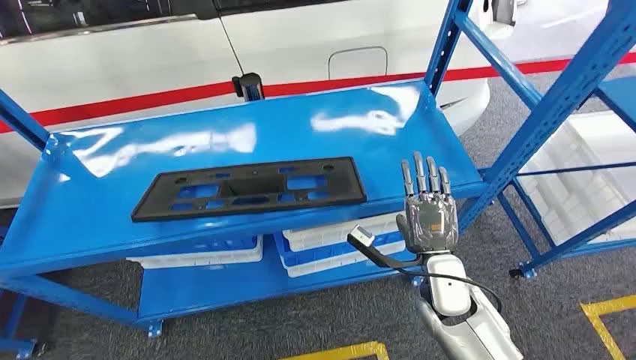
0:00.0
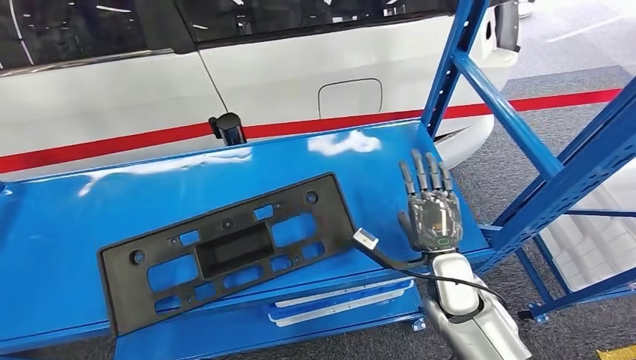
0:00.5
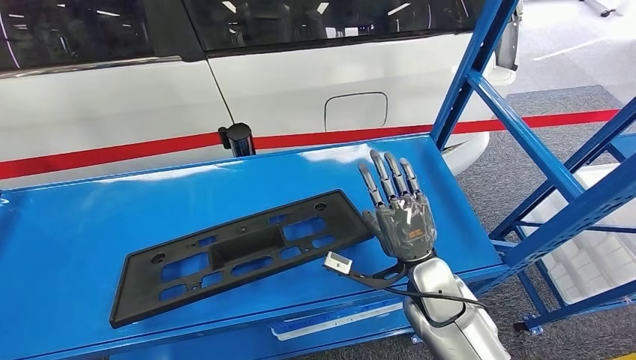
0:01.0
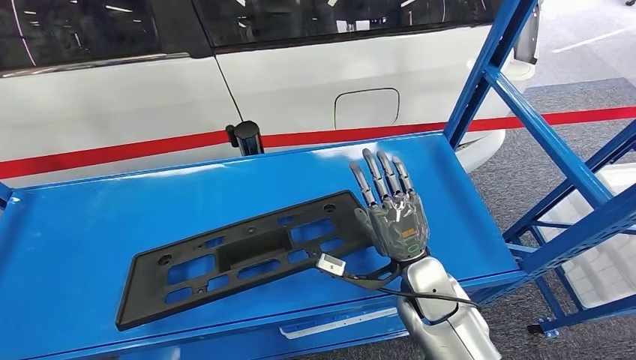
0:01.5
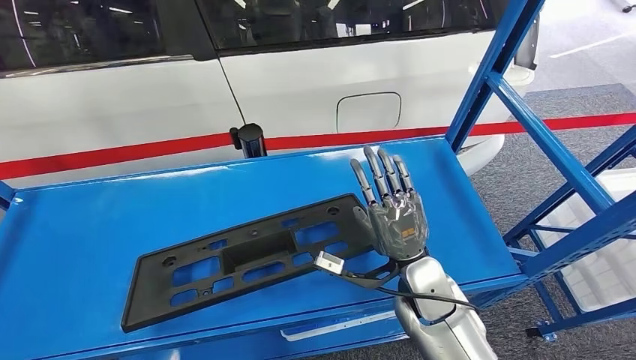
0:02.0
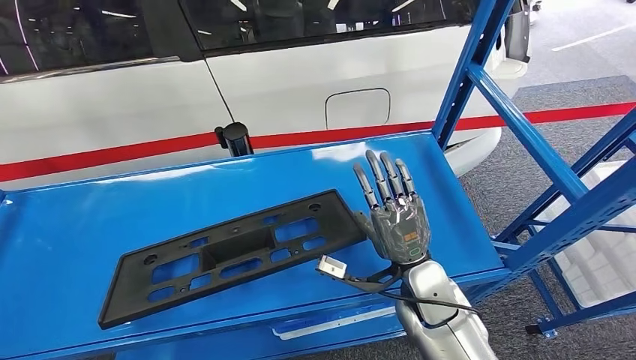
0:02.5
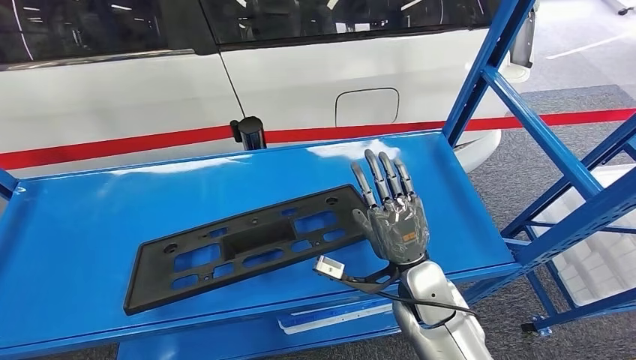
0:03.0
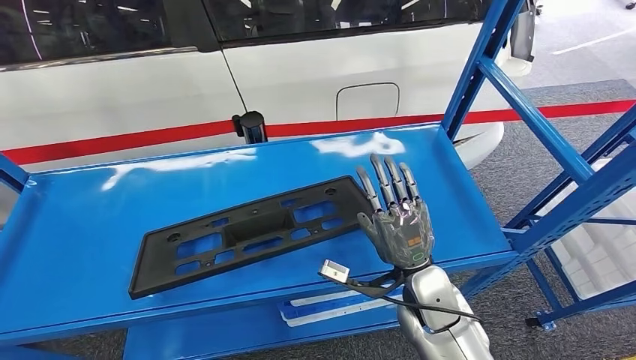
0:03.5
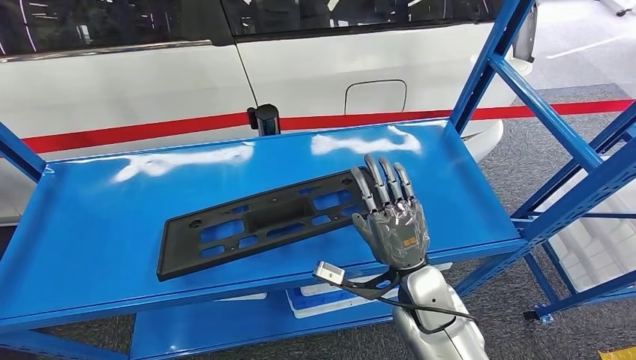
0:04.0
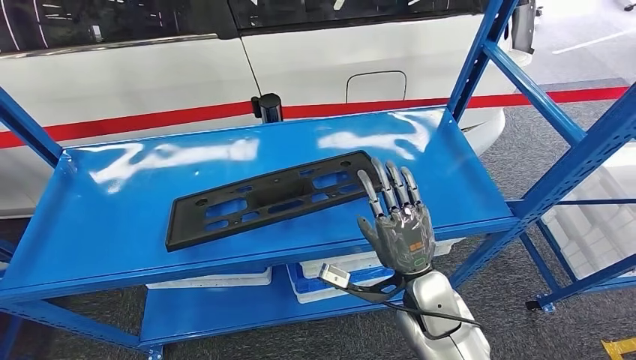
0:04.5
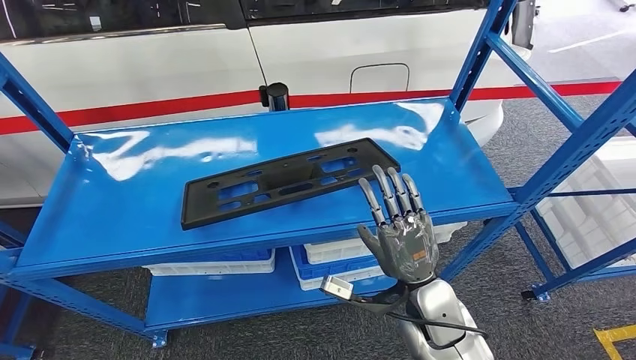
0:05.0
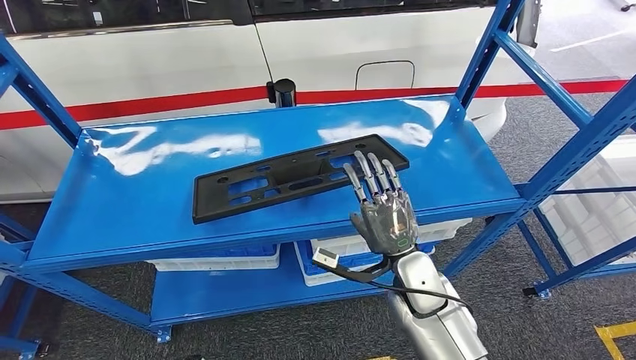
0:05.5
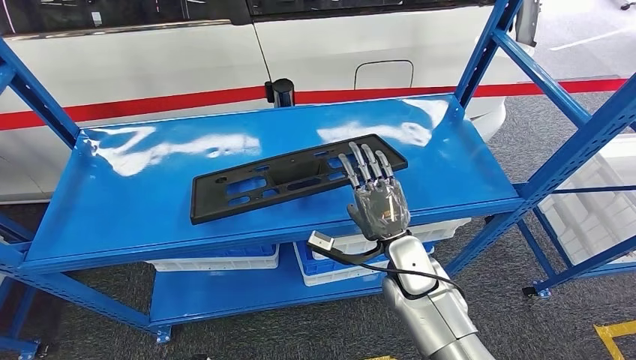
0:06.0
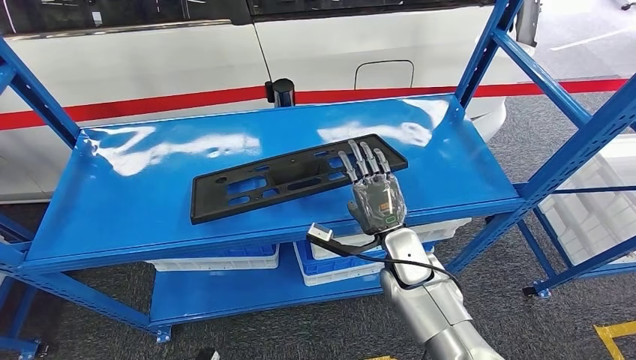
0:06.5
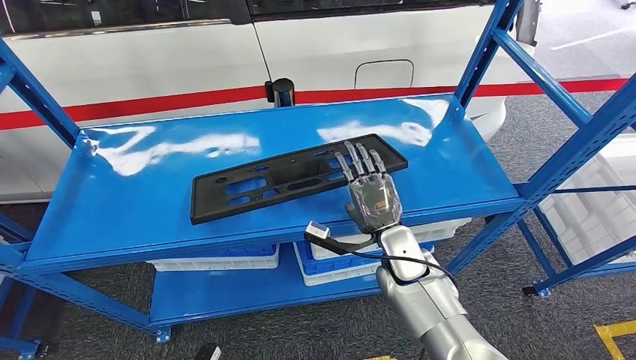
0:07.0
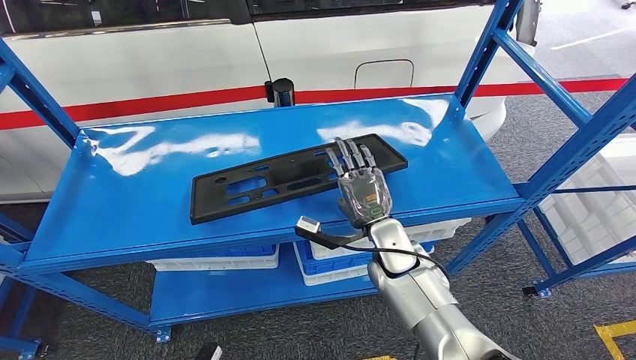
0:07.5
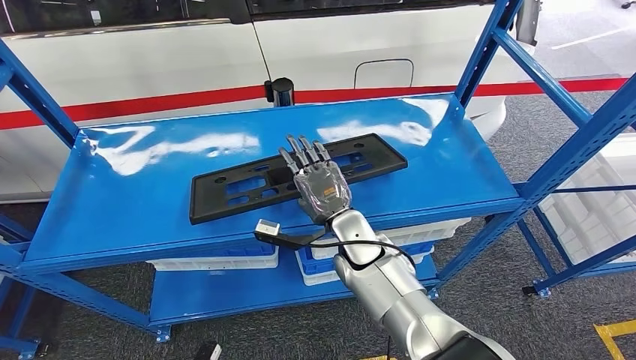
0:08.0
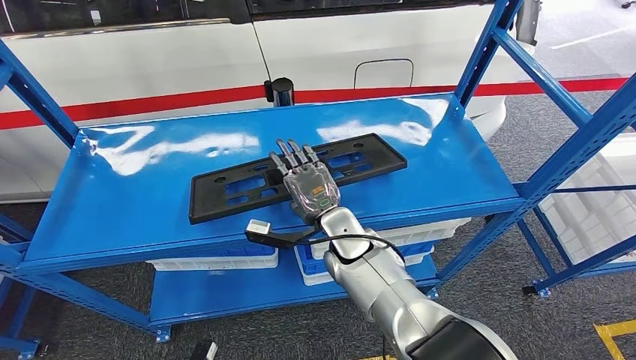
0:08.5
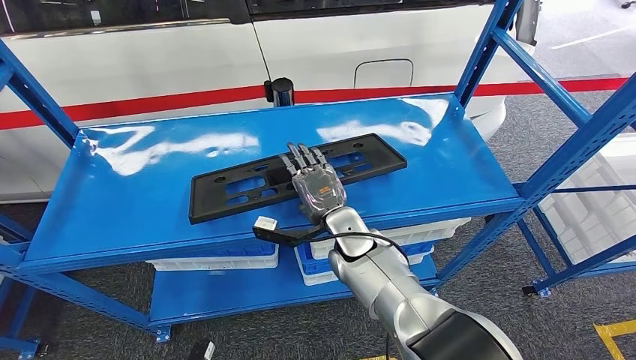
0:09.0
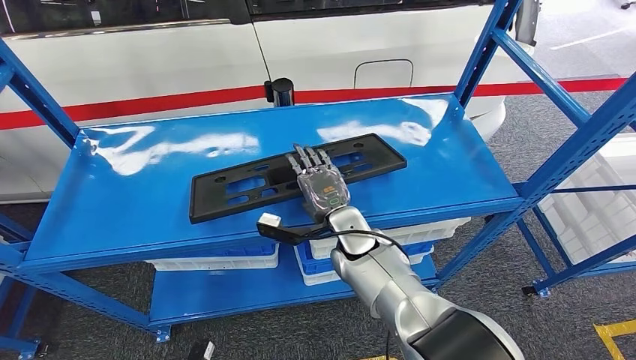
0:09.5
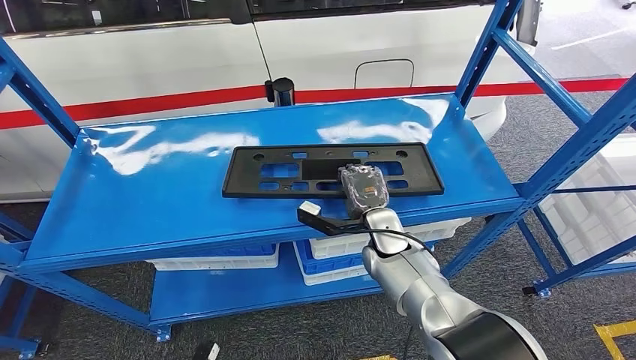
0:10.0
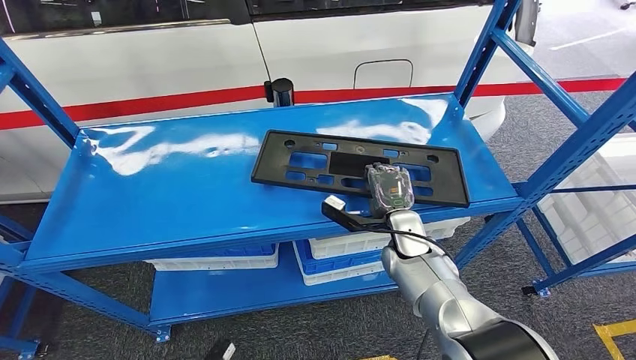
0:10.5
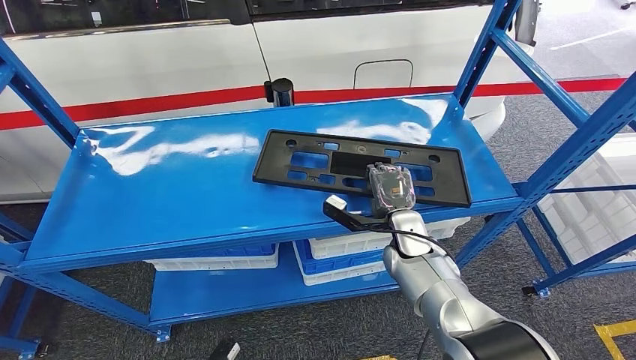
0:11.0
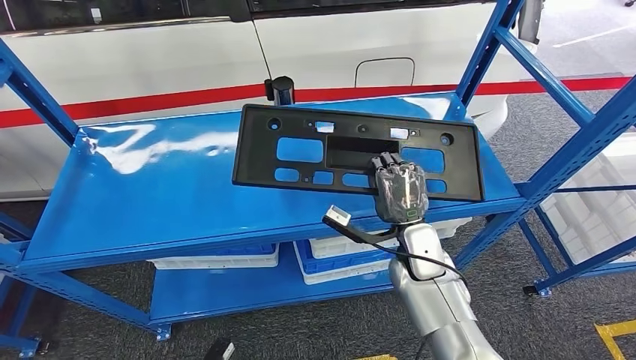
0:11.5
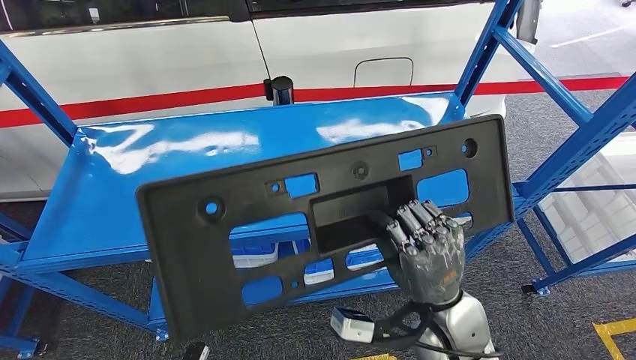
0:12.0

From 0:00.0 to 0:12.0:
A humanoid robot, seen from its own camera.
From 0:06.0 to 0:08.0: The right hand moves to the left, about 10 cm.
From 0:08.0 to 0:10.0: The right hand is displaced to the right by approximately 5 cm.

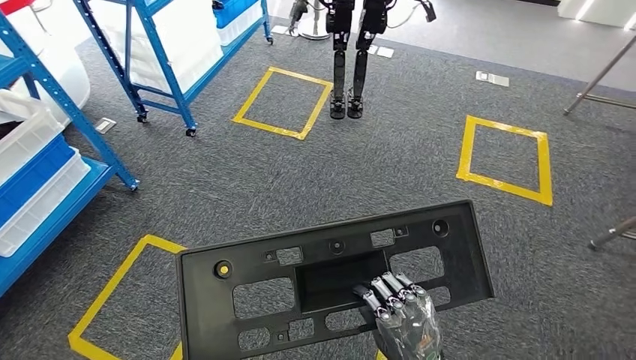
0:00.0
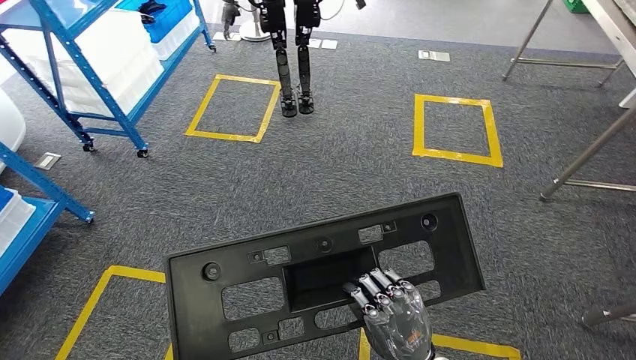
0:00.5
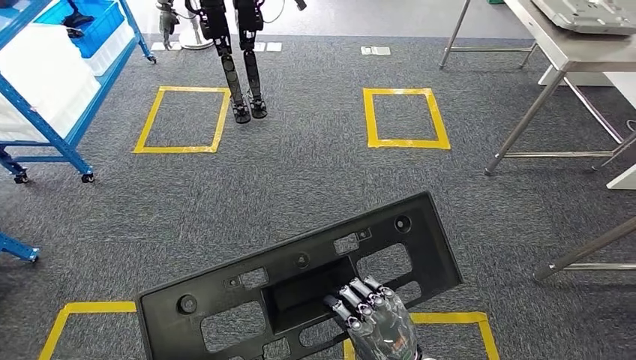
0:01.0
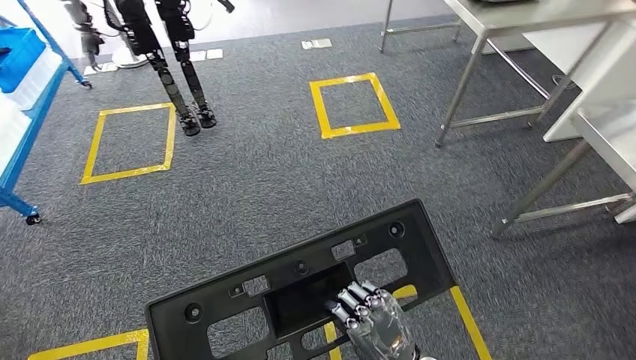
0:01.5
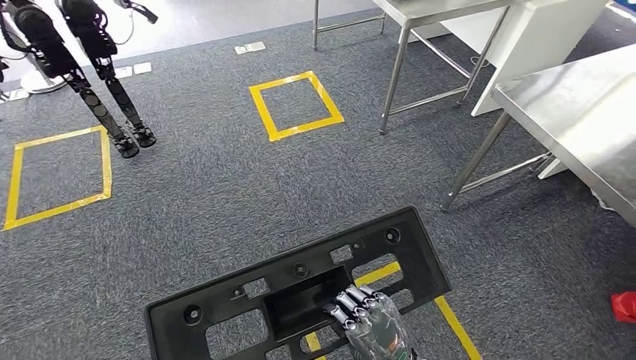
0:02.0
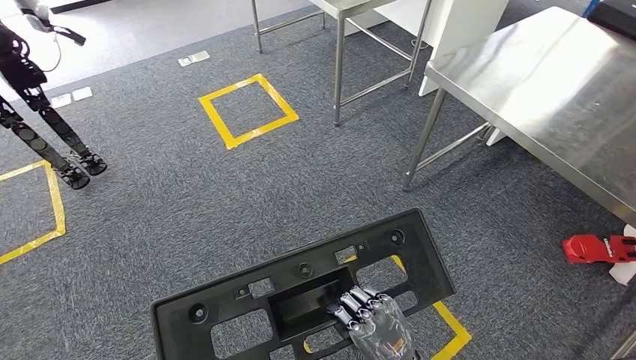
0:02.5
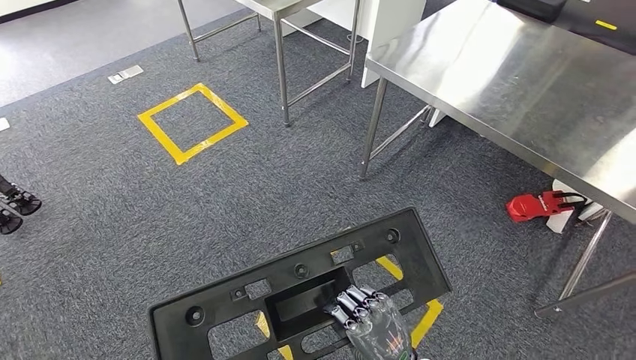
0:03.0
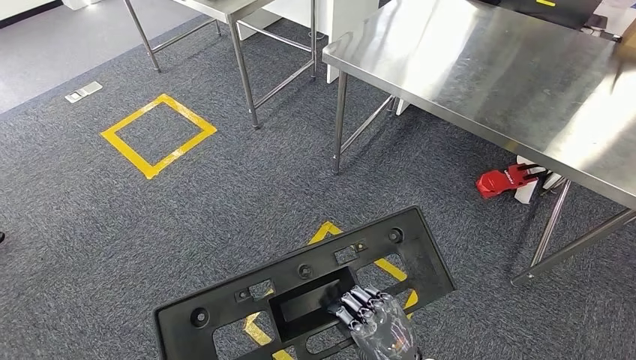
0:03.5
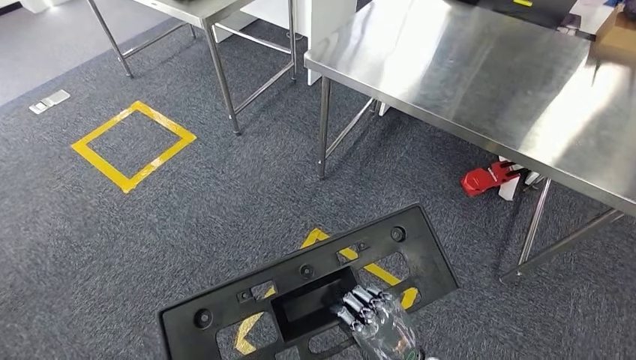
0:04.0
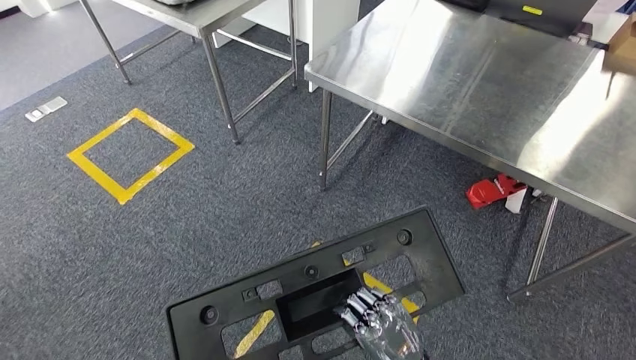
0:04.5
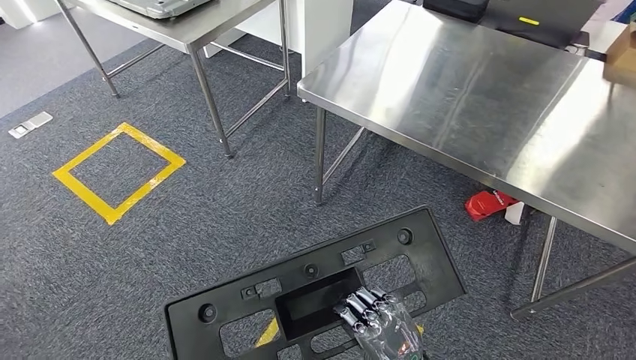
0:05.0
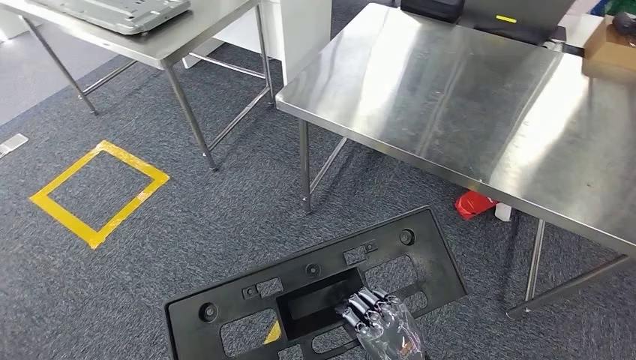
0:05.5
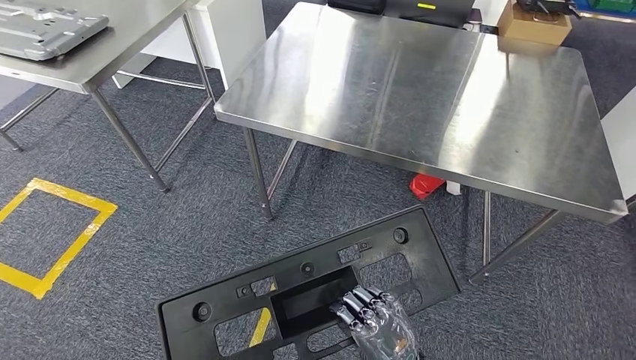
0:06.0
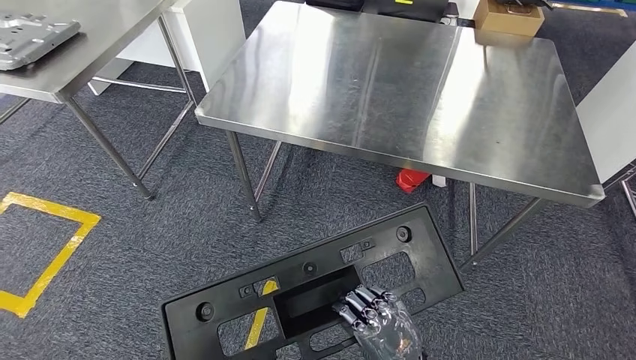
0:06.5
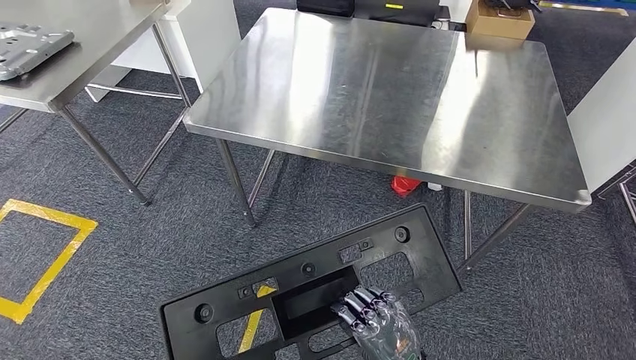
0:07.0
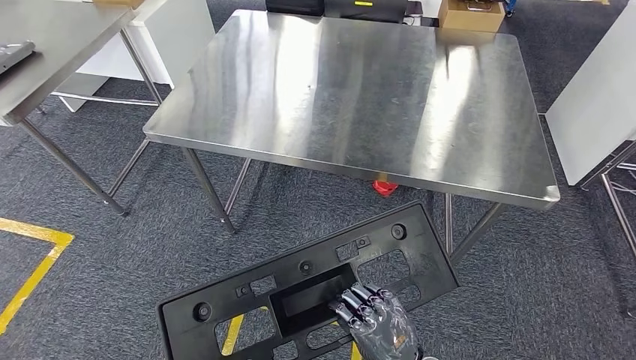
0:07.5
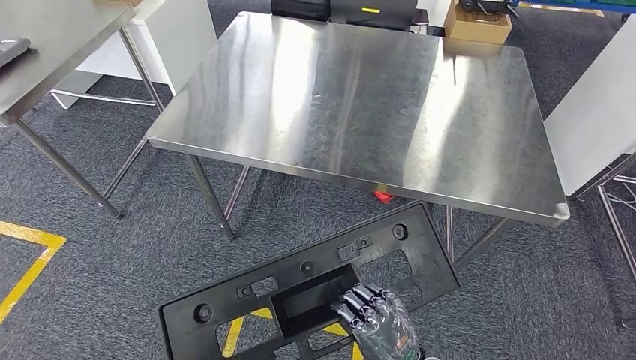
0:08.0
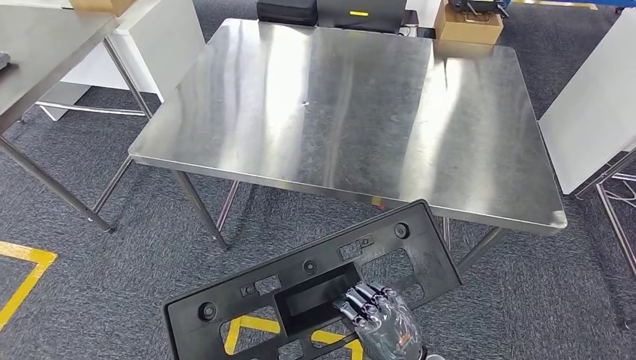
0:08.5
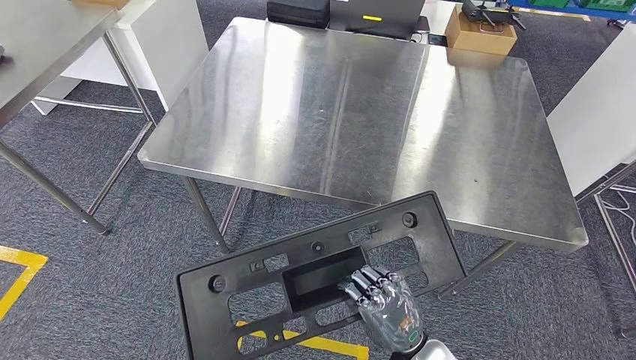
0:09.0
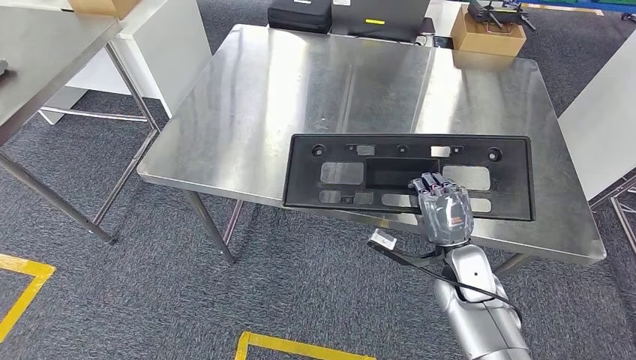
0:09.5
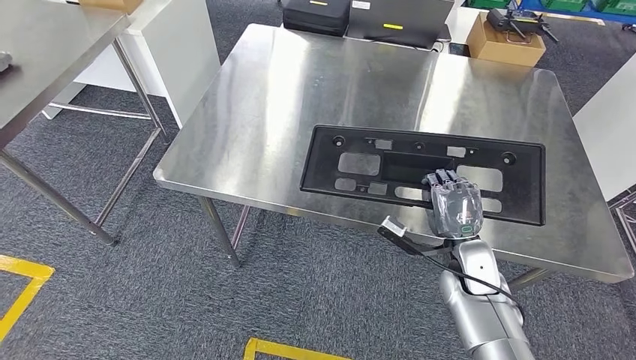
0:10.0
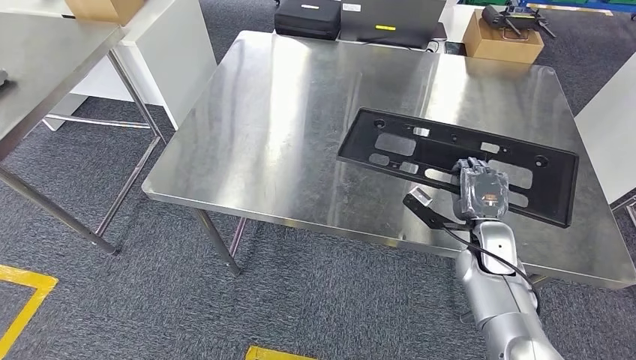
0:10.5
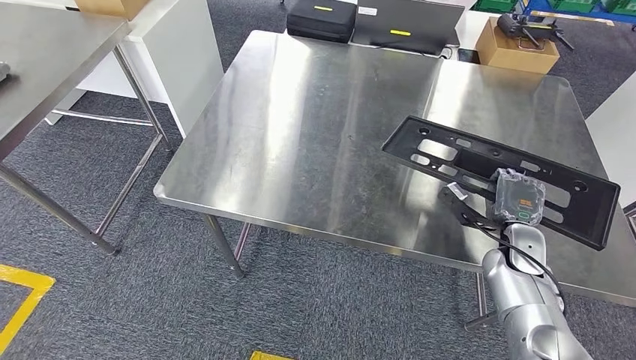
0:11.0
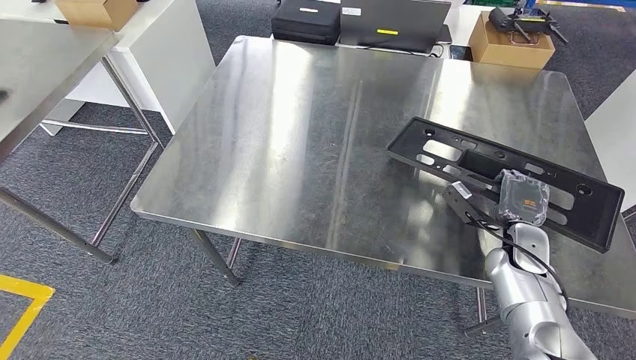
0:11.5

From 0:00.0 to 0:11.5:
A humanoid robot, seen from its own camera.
Step, from 0:00.0 to 0:07.5: Move the large material to the workbench.
